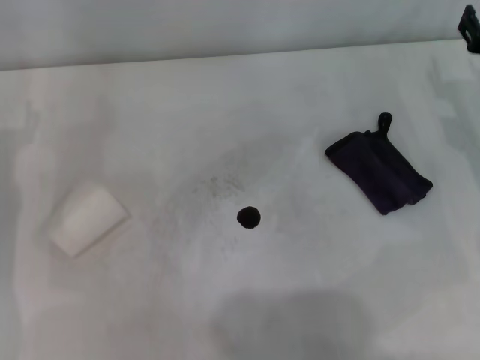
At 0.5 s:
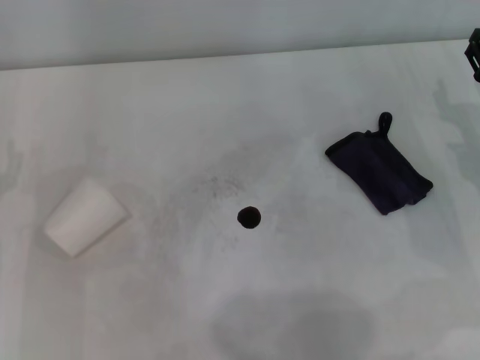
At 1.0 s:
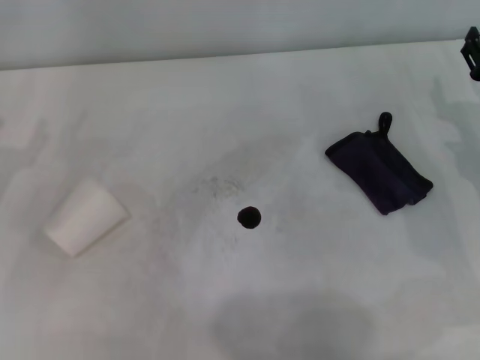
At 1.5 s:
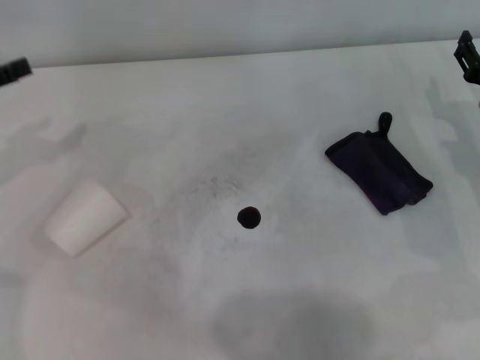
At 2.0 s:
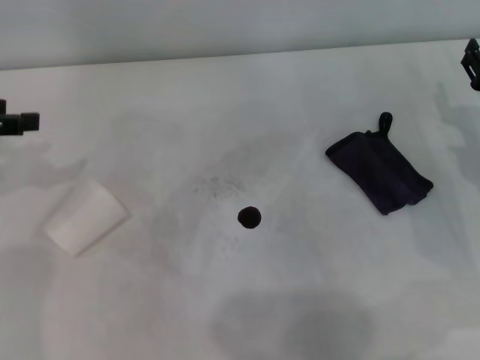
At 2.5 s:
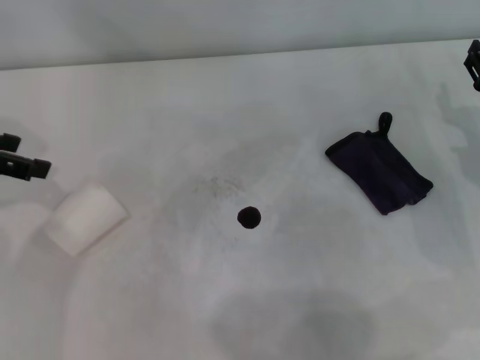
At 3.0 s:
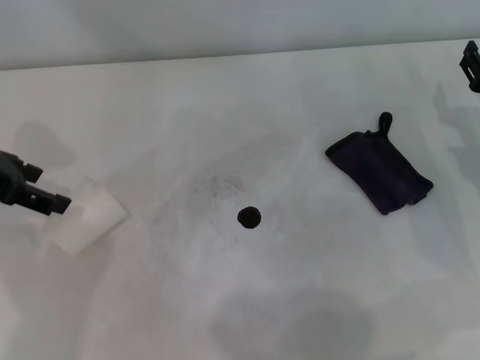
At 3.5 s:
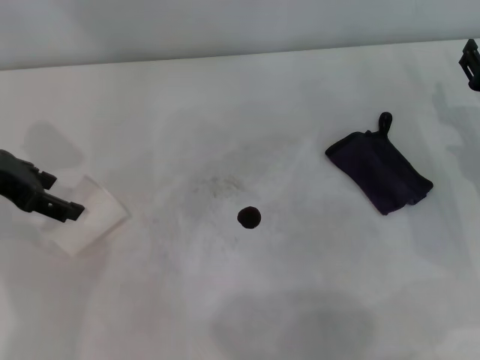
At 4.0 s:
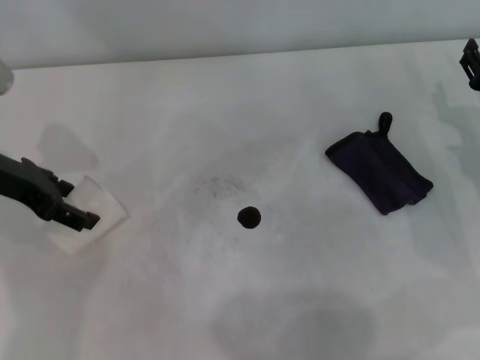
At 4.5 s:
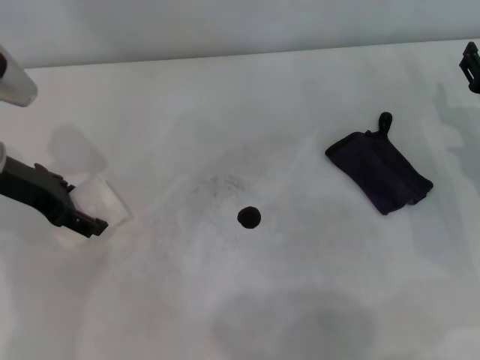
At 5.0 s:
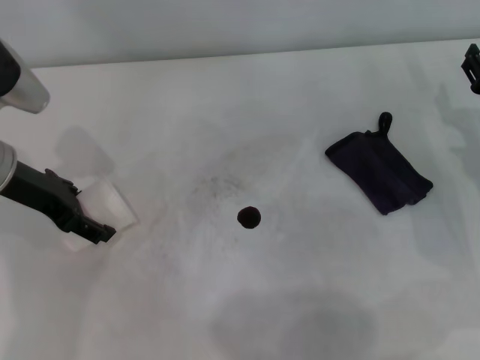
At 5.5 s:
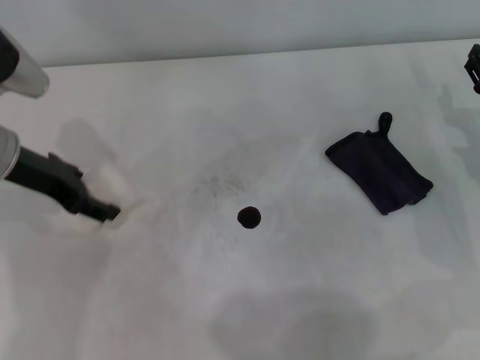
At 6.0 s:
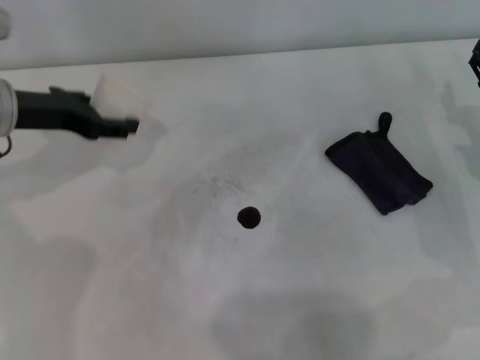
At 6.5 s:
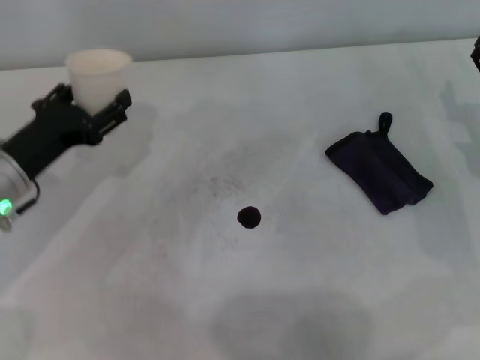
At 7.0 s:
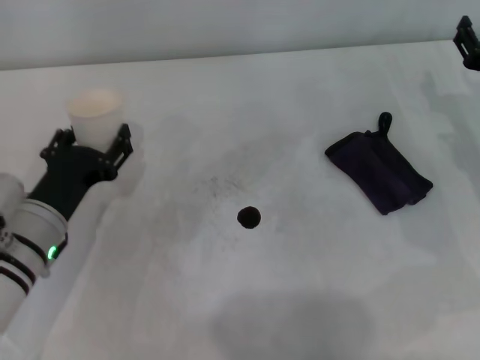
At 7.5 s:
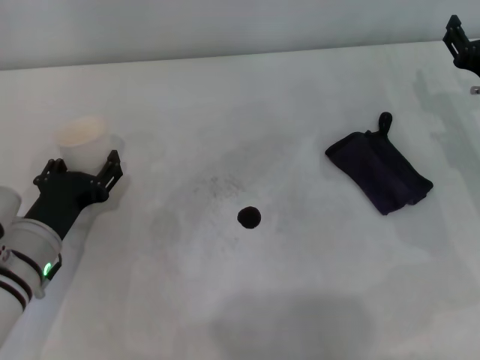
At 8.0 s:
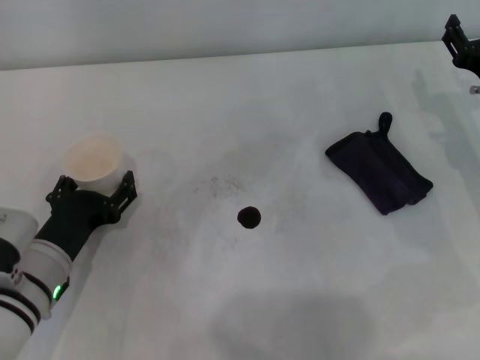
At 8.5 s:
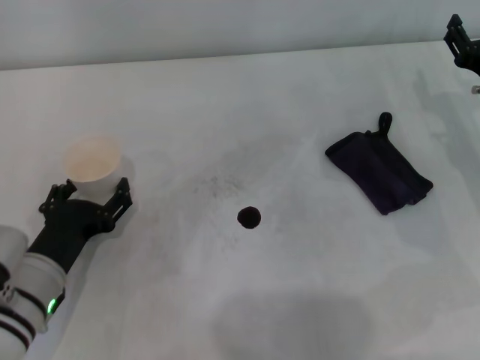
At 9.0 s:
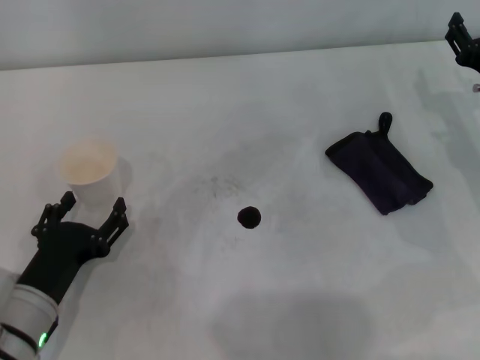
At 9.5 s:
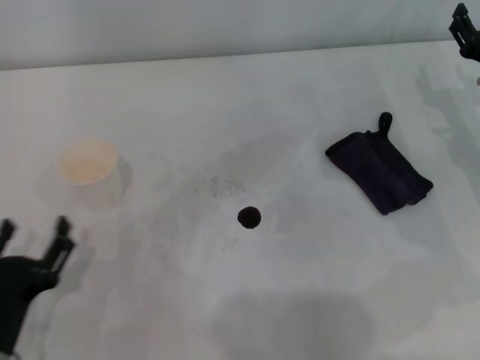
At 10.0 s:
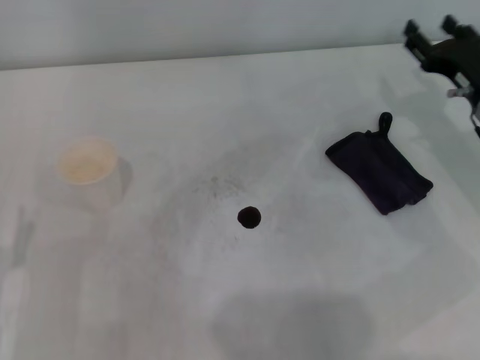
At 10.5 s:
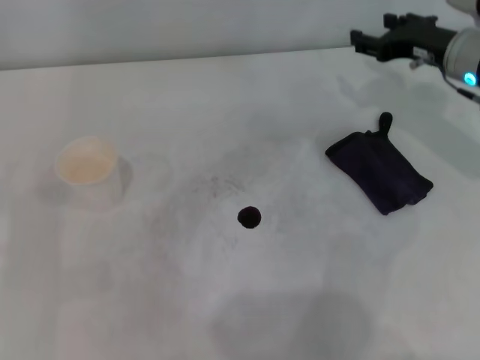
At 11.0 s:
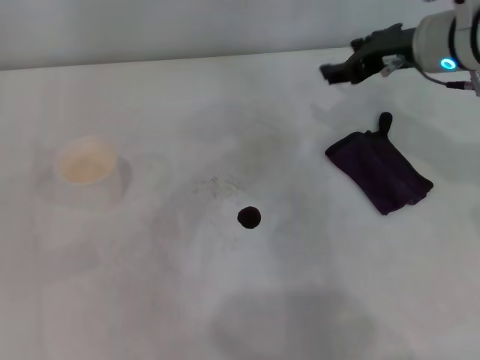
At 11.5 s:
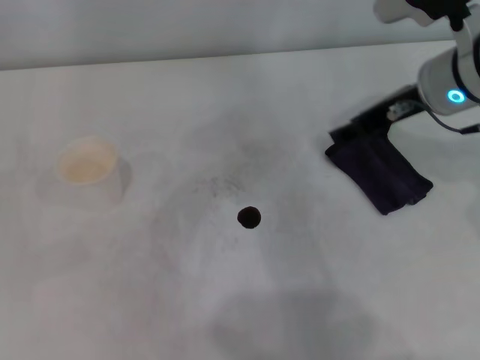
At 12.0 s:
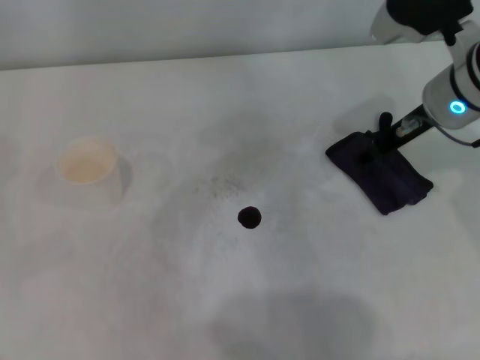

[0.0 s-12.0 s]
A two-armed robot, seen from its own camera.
Step, 0.0 to 4.0 s: Grasp the paper cup with the left gripper.
Step, 5.0 to 8.0 s: Stand the paper cup upright with the left gripper.
0.0 to 2.0 s: The left gripper goes roughly 15 cm upward and to the left.
2.0 to 4.0 s: The left gripper is displaced to the right by approximately 10 cm.
6.0 to 8.0 s: The left gripper travels downward and backward by some 20 cm.
8.0 to 10.0 s: The left gripper moves backward and to the left, some 10 cm.
10.0 to 12.0 s: The right gripper travels upward and to the left by some 10 cm.

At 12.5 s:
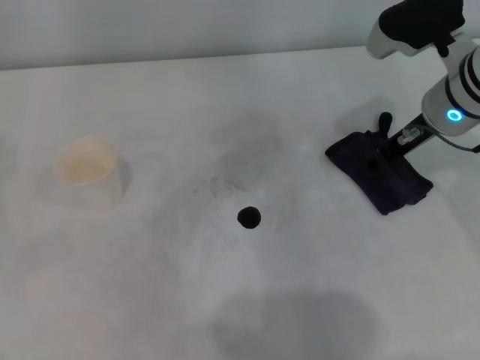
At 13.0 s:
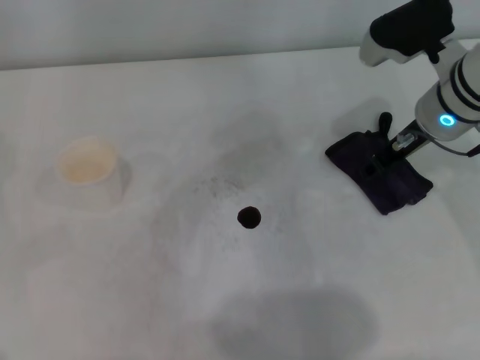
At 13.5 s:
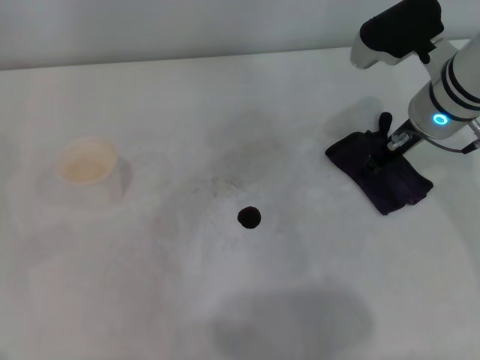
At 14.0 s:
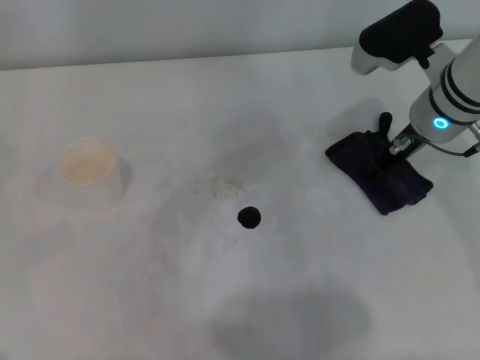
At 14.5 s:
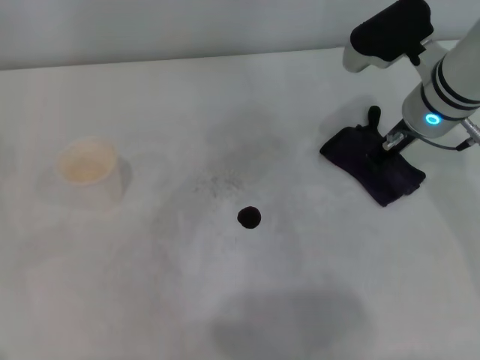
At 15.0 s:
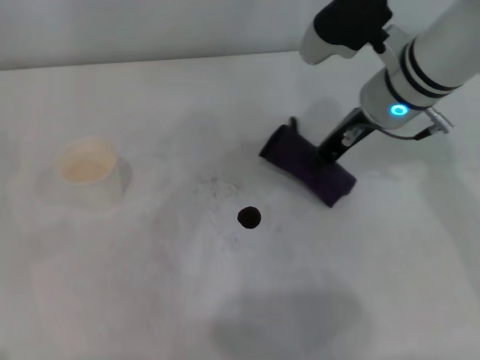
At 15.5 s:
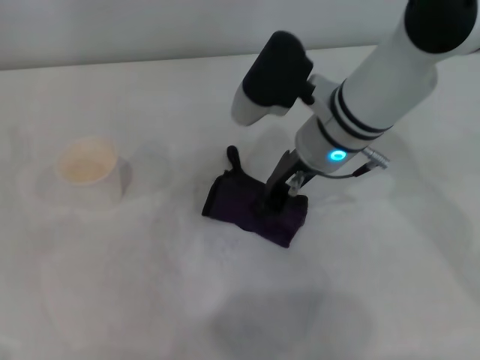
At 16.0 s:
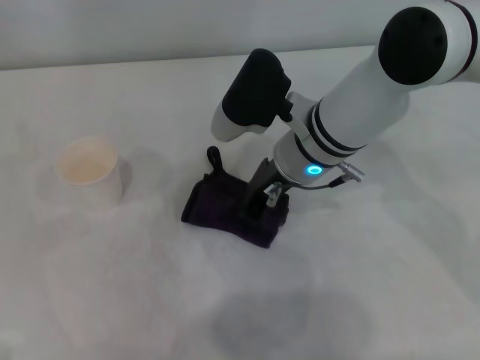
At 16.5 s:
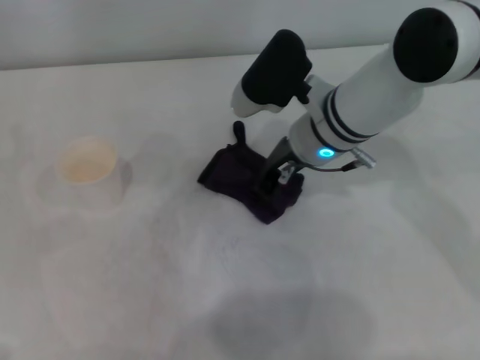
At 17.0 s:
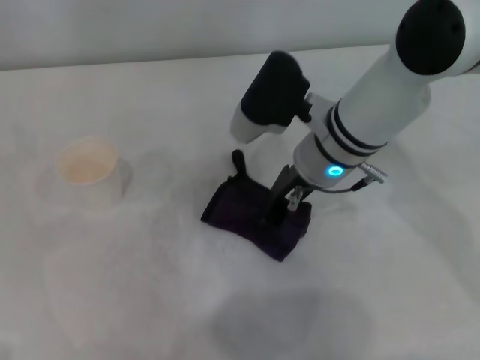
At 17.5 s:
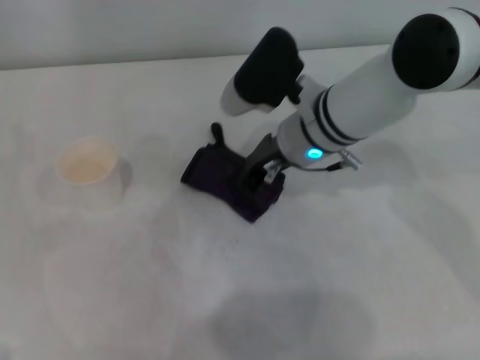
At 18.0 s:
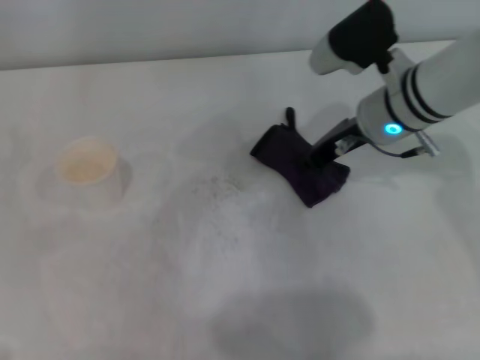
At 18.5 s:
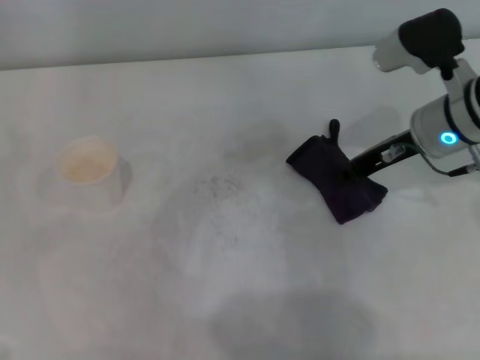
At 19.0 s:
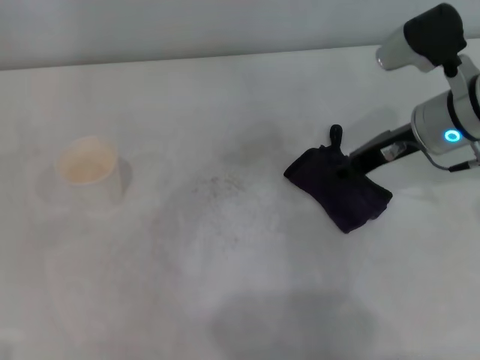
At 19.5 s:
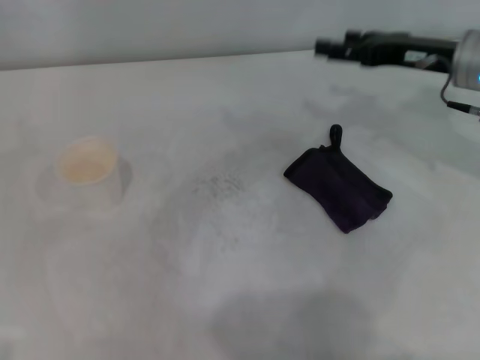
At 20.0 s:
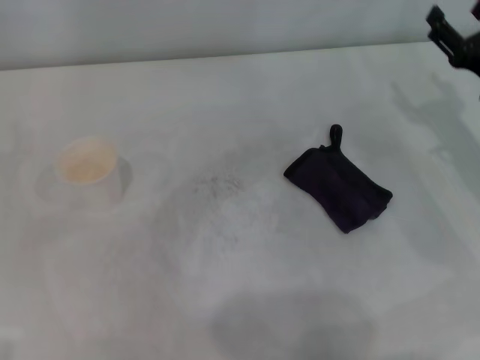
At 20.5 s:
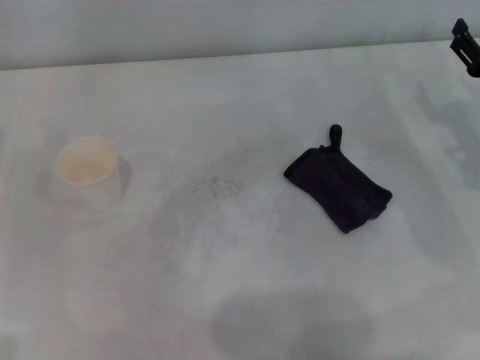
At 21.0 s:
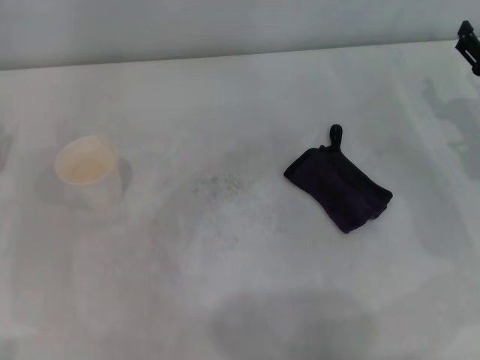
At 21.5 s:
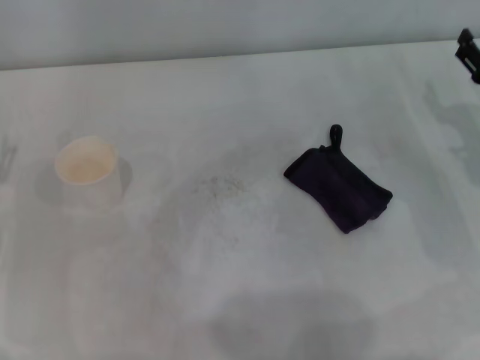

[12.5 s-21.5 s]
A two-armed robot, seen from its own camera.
Step, 14.5 to 18.0 s: Wipe the stains off the table with the right gripper.
Step, 18.5 to 19.0 s: Place the rag on the table with the right gripper.
12.5 to 14.5 s: The right gripper closes.
14.5 to 17.0 s: The right gripper is displaced to the left by roughly 10 cm.
17.0 to 19.5 s: The right gripper goes about 15 cm to the right, and opens up.
19.5 to 21.5 s: The right gripper moves downward, backward and to the right, roughly 10 cm, and opens.
